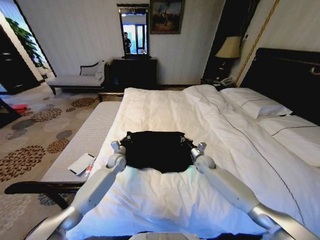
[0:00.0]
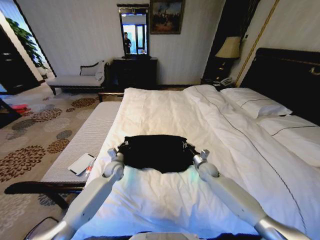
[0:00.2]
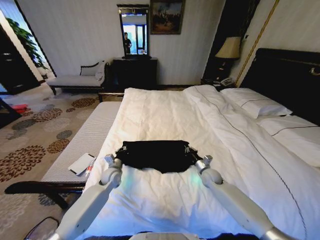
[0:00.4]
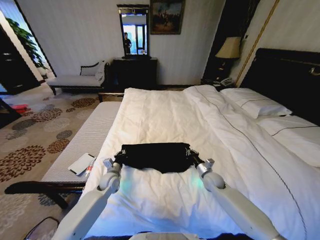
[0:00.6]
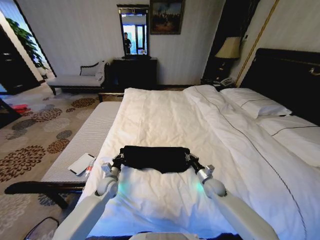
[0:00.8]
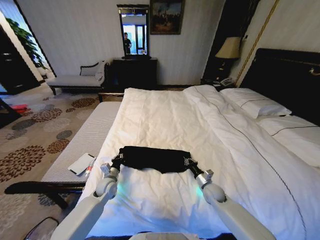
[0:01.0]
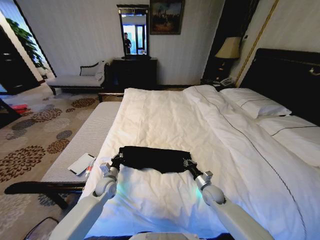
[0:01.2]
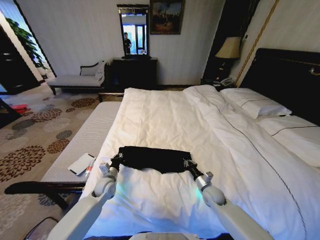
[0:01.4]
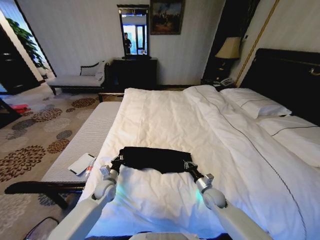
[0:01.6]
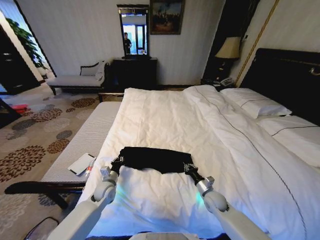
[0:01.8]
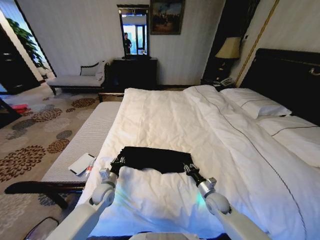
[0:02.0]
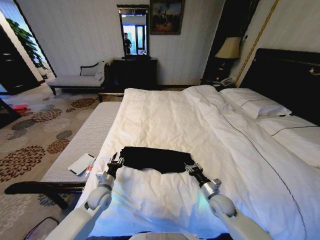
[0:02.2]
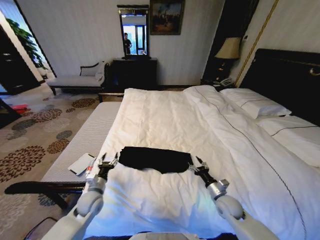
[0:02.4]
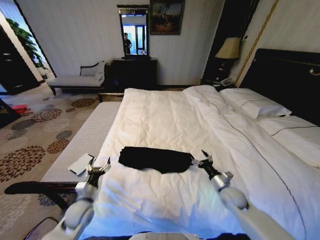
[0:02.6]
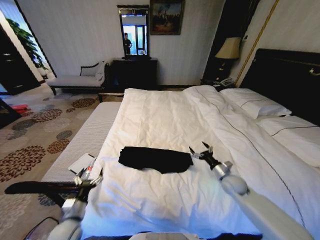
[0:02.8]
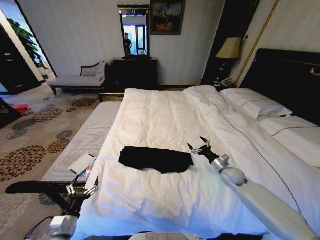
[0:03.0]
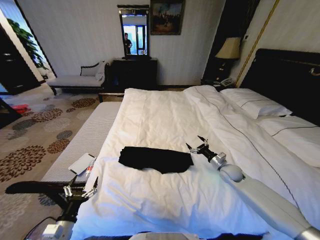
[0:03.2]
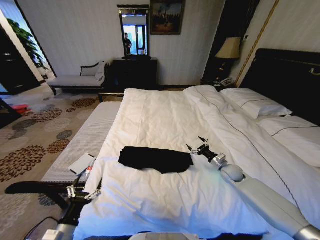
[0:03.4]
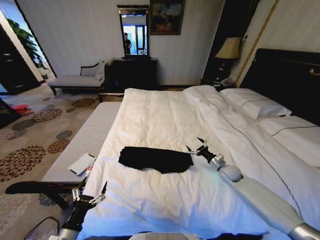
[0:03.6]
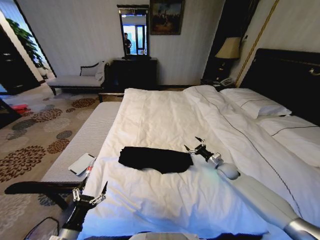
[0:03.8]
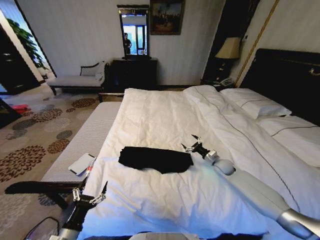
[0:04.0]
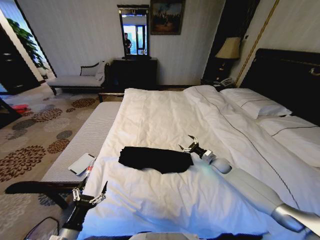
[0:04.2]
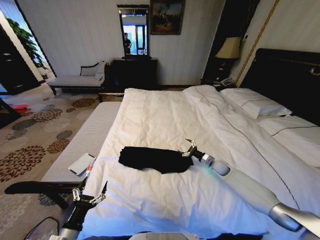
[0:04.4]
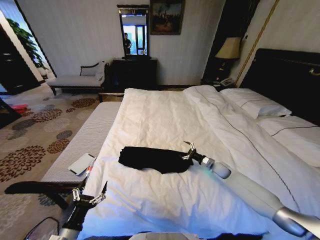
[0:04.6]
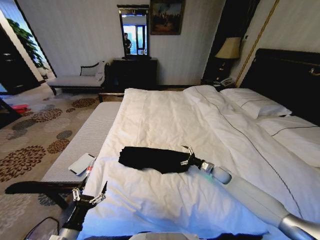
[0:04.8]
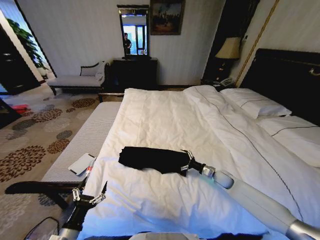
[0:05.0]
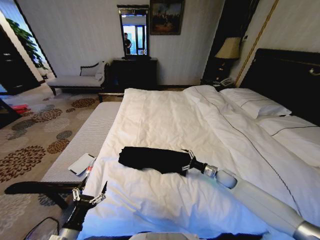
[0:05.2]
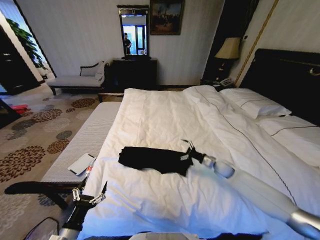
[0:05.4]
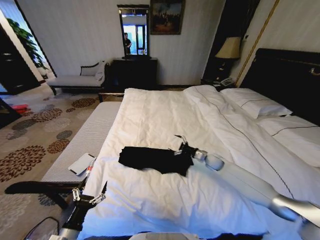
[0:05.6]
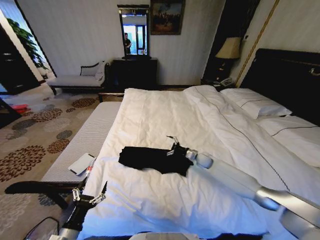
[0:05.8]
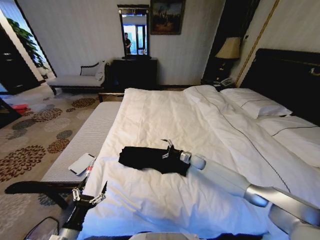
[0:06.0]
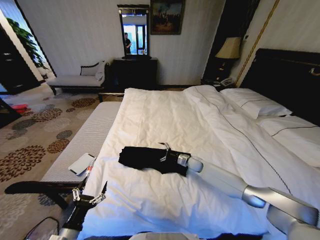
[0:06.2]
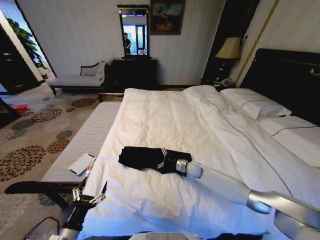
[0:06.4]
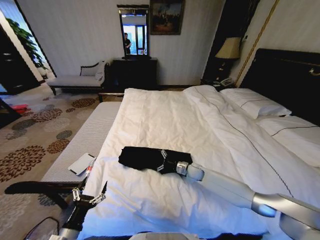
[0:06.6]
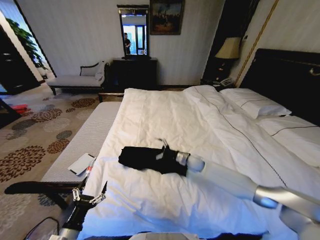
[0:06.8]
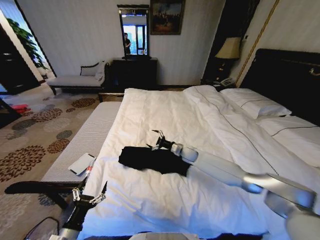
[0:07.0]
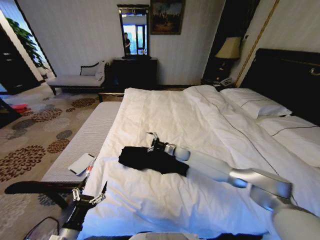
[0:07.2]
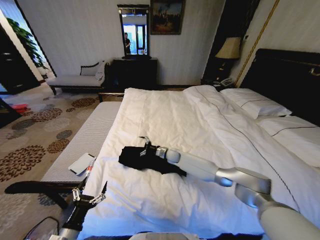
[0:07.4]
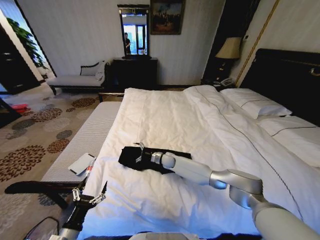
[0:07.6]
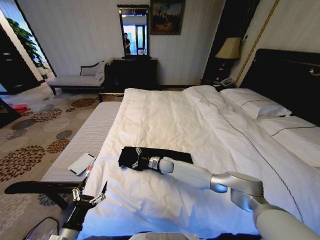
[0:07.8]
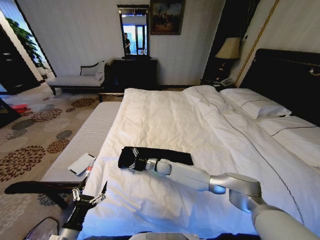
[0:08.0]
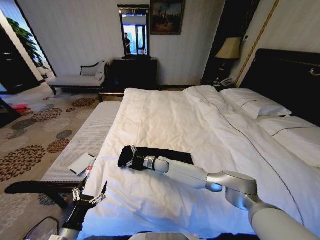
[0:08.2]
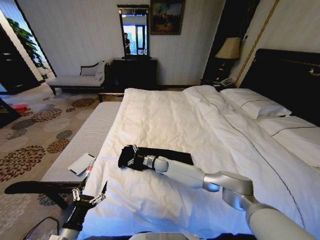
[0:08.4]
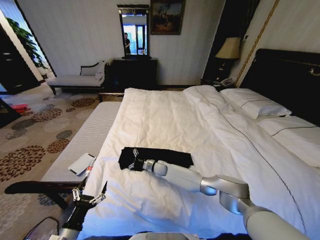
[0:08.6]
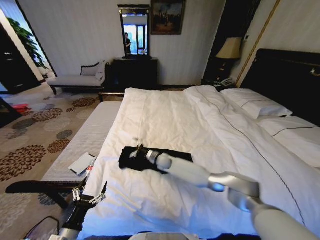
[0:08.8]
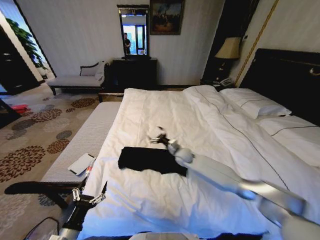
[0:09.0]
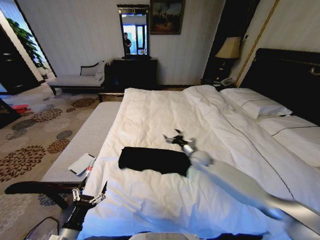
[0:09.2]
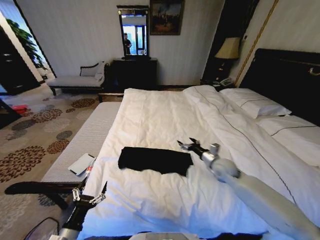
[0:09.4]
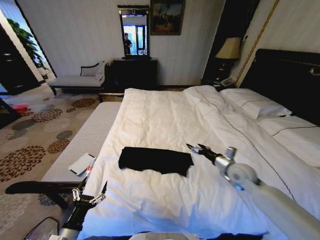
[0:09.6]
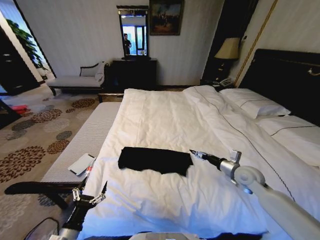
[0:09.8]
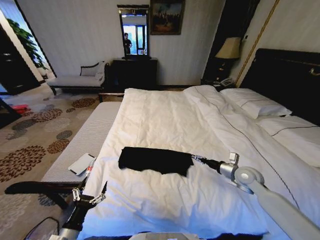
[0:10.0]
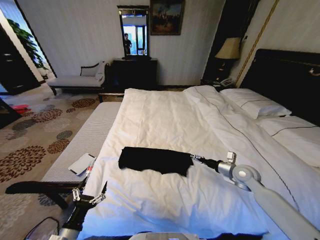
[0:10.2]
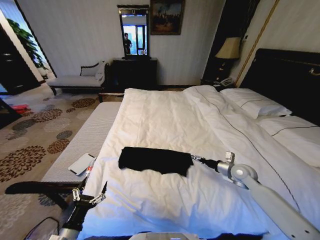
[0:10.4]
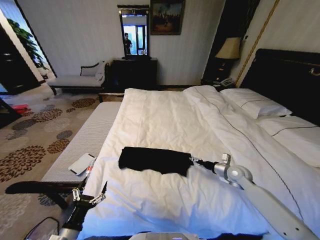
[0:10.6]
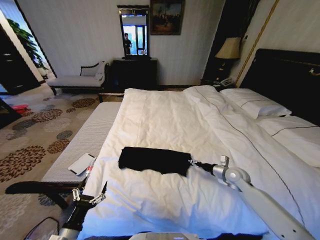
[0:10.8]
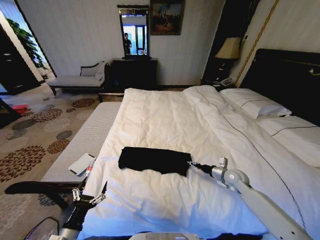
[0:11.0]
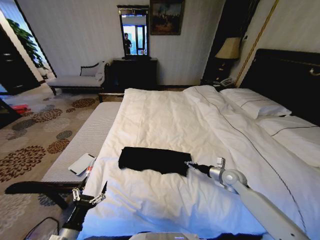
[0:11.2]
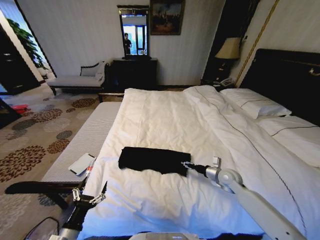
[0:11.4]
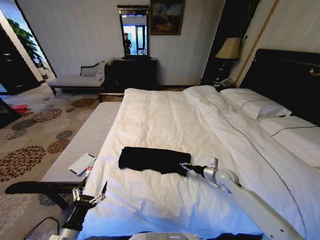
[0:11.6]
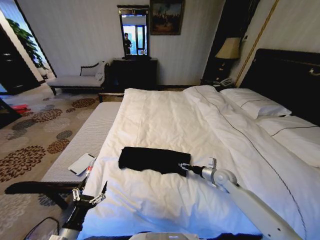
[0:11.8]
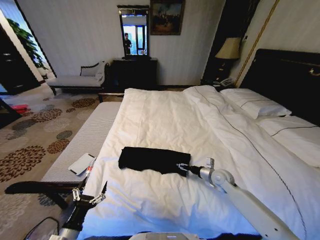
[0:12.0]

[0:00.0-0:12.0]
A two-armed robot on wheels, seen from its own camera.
Task of the whole recording: Fold the clothes on the bed.
0:00.0 to 0:01.6: The left gripper moves backward, approximately 15 cm, while the right gripper shifts about 15 cm backward and downward.
0:01.6 to 0:03.0: The left gripper heads backward and to the left, covering some 25 cm, and opens up. The right gripper shifts about 15 cm to the right, upward and forward, and opens up.
0:03.0 to 0:04.4: The right gripper shifts approximately 5 cm forward.
0:04.4 to 0:06.0: The right gripper heads to the left, covering roughly 10 cm.
0:06.0 to 0:07.6: The right gripper is displaced to the left by approximately 20 cm.
0:07.6 to 0:09.0: The right gripper is displaced upward and to the right by approximately 10 cm.
0:09.0 to 0:10.4: The right gripper is displaced to the right and backward by some 30 cm.
0:10.4 to 0:12.0: The right gripper shifts approximately 10 cm to the left.

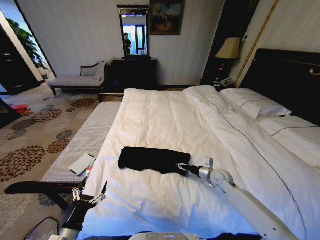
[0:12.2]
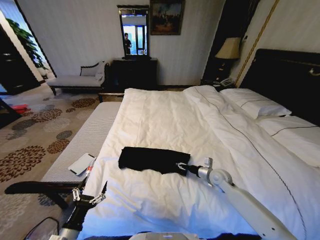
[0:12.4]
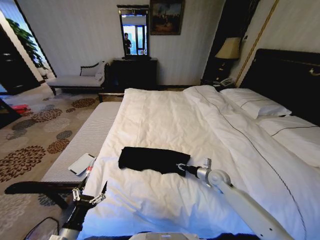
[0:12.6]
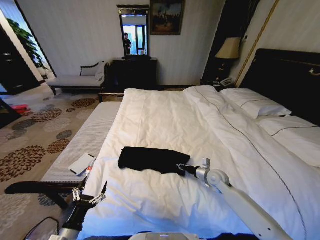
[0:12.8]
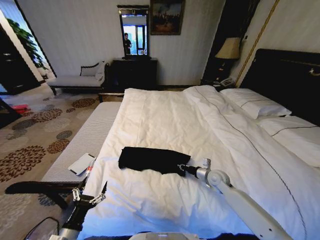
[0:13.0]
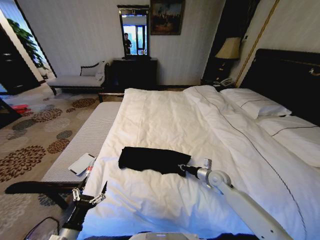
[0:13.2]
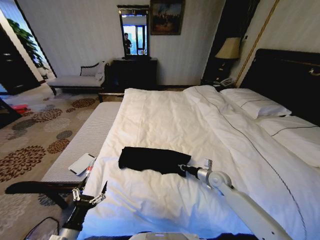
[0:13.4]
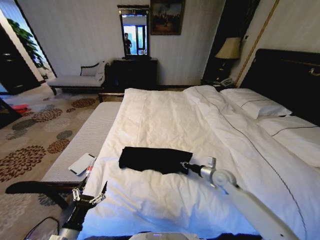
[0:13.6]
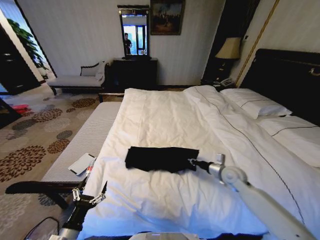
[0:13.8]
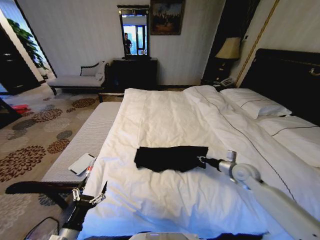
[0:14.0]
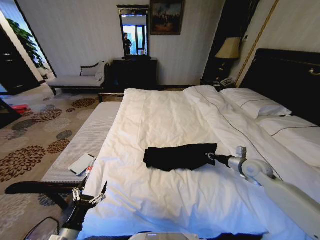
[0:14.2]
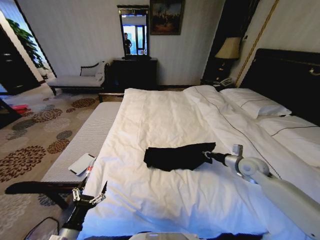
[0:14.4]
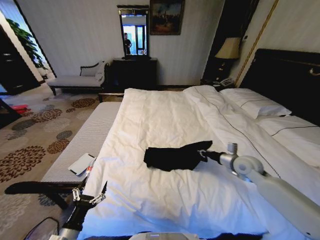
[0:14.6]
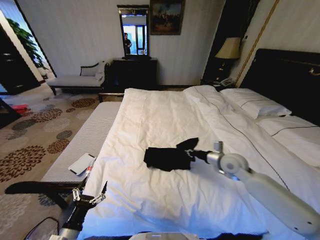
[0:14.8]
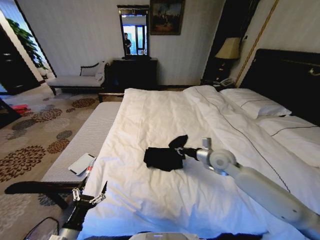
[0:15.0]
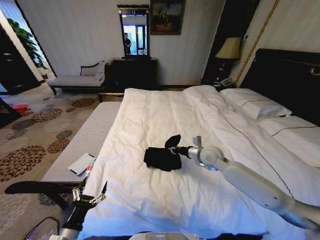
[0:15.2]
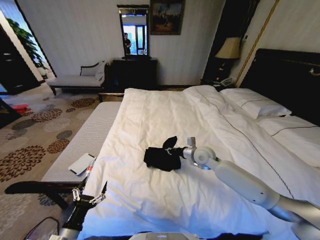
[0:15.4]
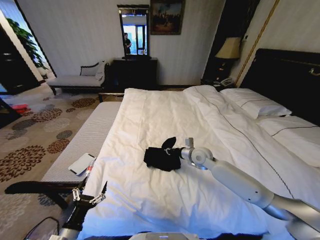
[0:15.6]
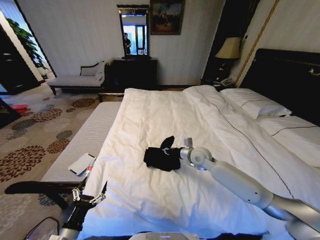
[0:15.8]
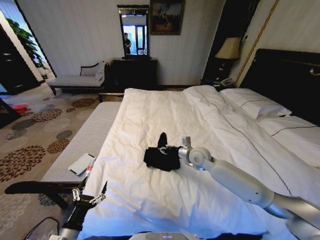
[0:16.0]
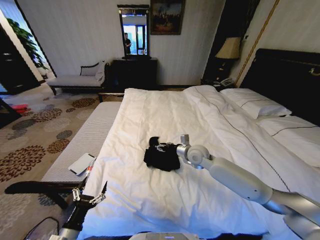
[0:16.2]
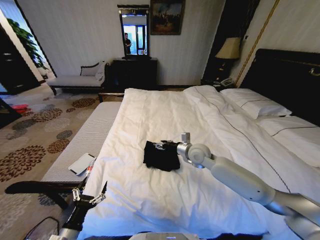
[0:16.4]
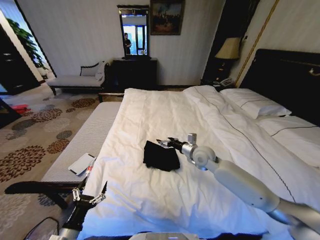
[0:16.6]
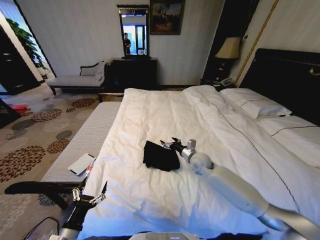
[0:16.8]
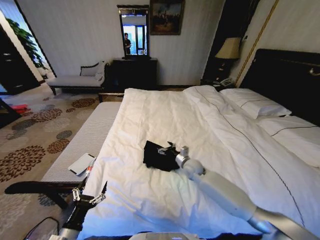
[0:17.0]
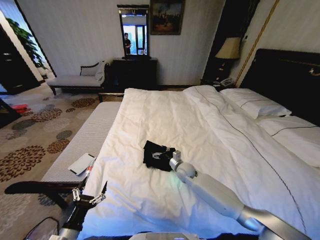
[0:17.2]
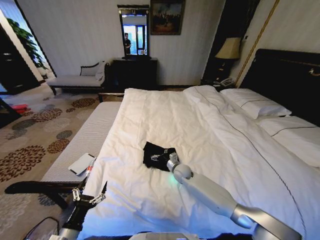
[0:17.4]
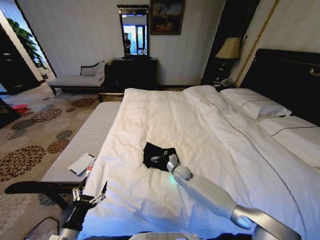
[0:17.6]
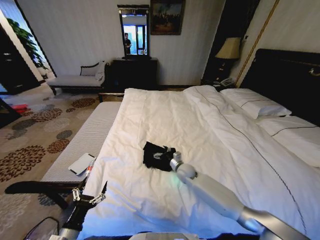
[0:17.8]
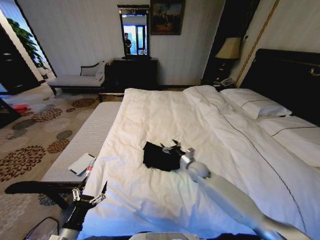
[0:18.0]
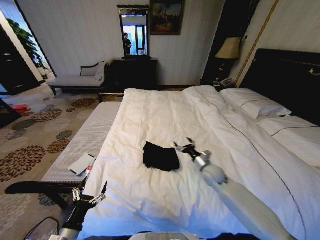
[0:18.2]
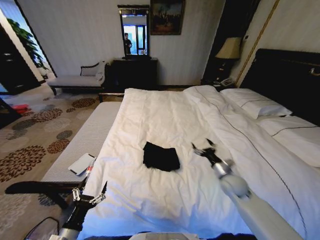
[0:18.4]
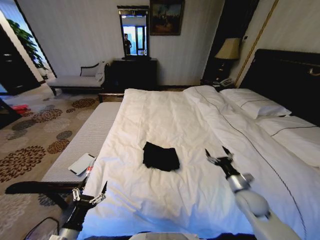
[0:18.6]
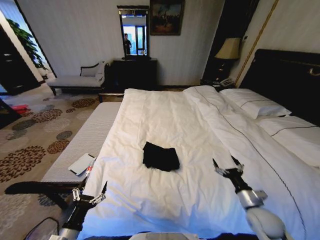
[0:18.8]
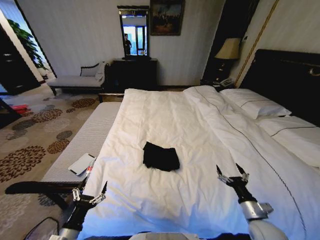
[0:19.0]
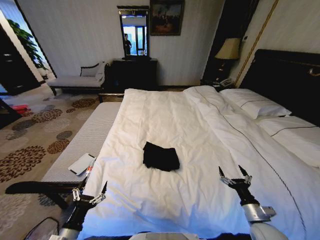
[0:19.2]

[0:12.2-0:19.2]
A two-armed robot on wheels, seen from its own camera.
Task of the whole recording: Fold the clothes on the bed.
0:12.2 to 0:13.6: The right gripper closes its fingers.
0:13.6 to 0:15.0: The right gripper heads upward, covering roughly 10 cm, and reaches approximately 10 cm to the right, then returns.
0:15.0 to 0:16.4: The right gripper shifts about 10 cm to the left, and opens.
0:16.4 to 0:17.8: The right gripper heads downward, covering some 15 cm.
0:17.8 to 0:19.2: The right gripper heads backward and to the right, covering about 35 cm.

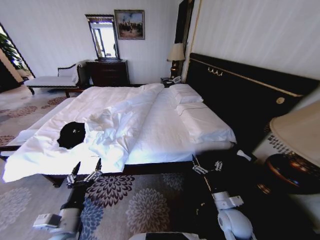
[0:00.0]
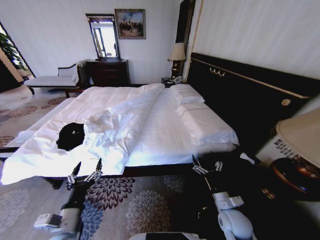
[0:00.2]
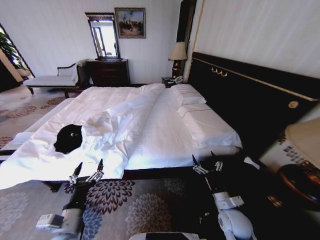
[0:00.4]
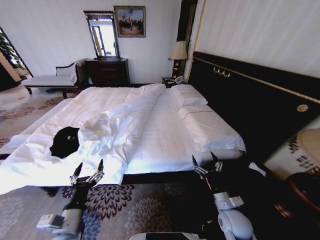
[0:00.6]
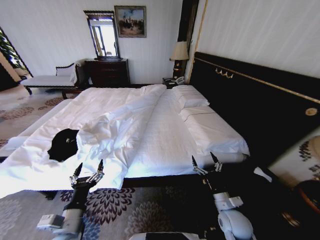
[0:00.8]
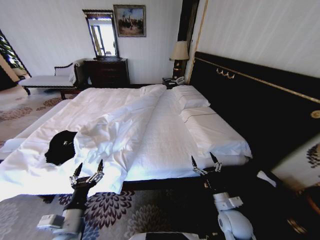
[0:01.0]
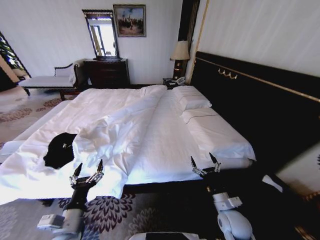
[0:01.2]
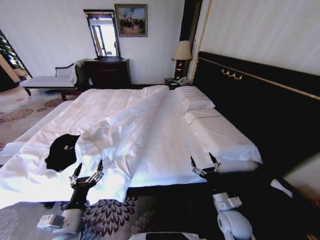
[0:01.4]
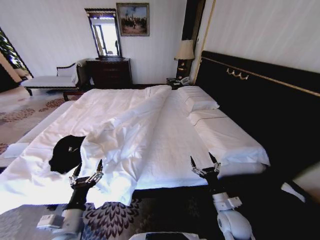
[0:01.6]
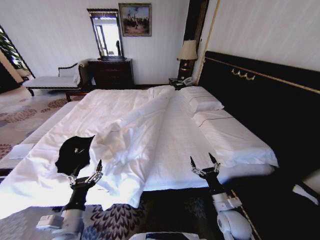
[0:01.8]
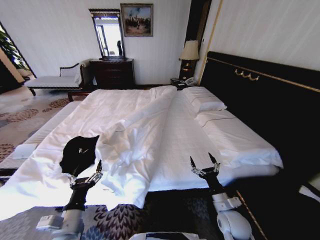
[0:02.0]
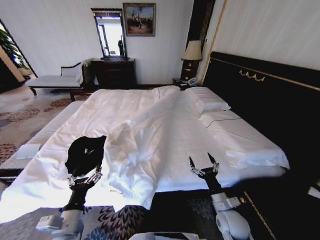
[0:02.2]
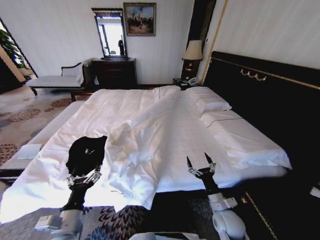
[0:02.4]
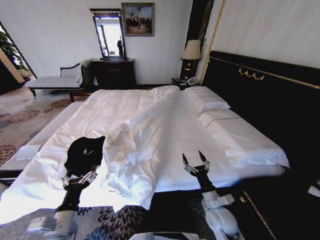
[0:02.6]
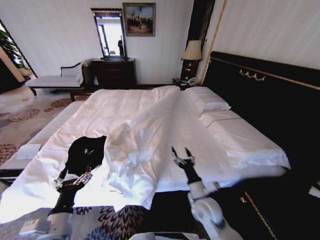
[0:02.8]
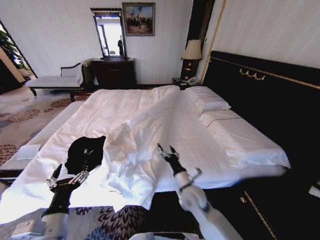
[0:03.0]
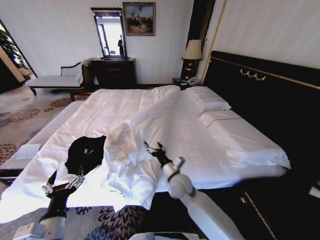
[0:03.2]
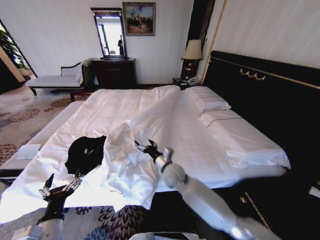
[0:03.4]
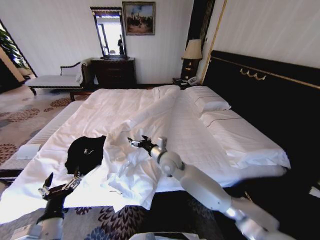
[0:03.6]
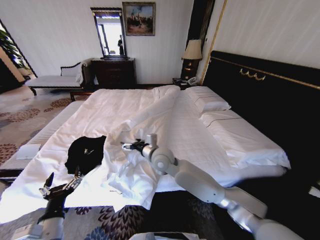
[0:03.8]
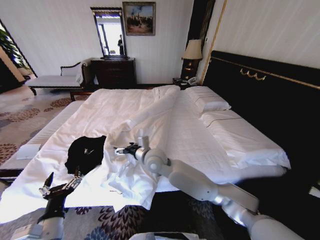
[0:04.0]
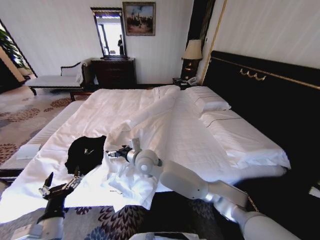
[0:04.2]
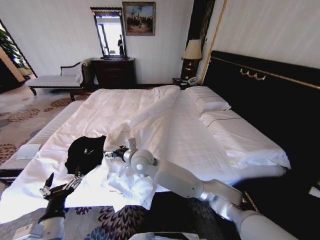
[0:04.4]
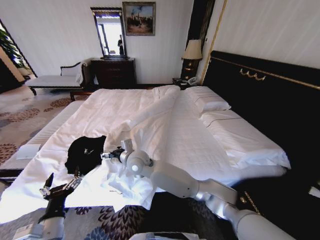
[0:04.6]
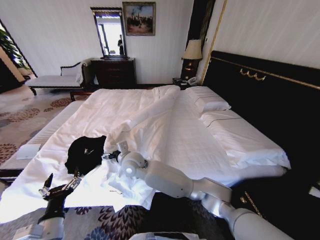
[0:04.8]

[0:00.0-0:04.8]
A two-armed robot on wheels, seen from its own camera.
Task of the whole recording: Fold the clothes on the bed.
0:01.6 to 0:03.2: The right gripper goes roughly 20 cm to the left and forward.
0:03.2 to 0:04.8: The right gripper moves to the left and upward, approximately 20 cm.
